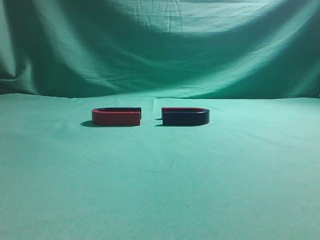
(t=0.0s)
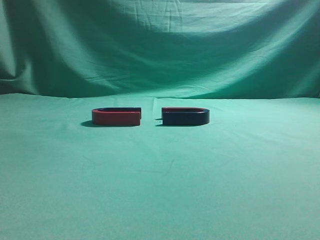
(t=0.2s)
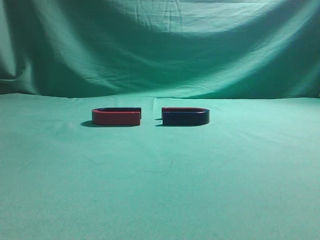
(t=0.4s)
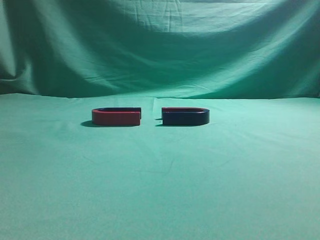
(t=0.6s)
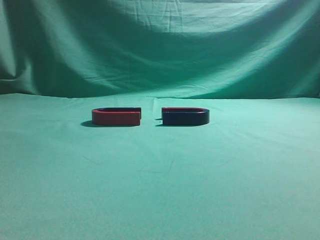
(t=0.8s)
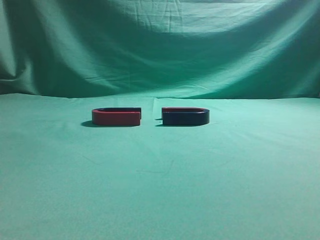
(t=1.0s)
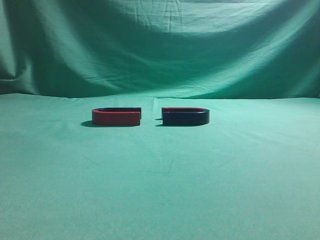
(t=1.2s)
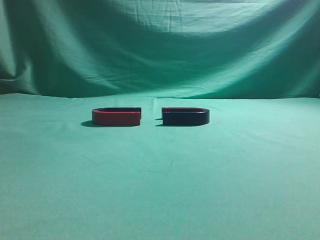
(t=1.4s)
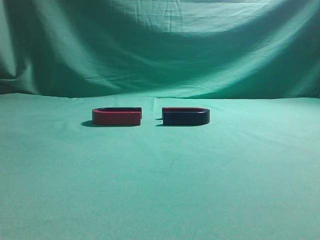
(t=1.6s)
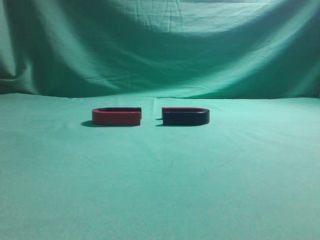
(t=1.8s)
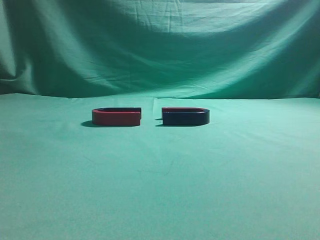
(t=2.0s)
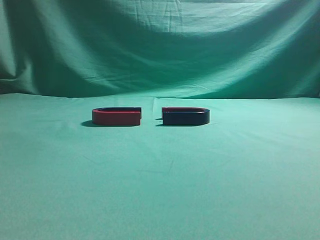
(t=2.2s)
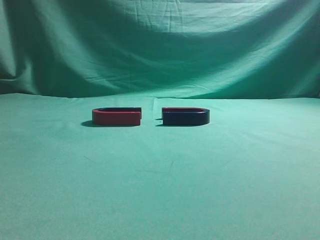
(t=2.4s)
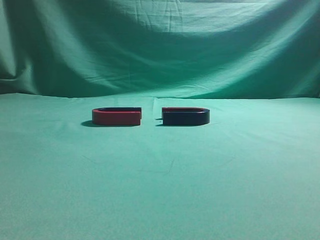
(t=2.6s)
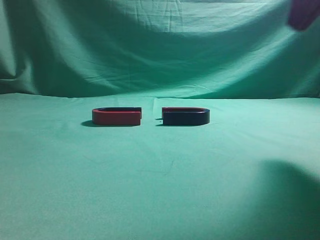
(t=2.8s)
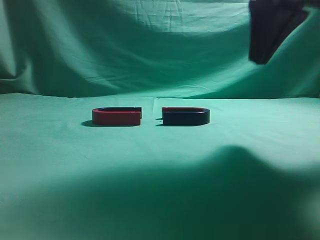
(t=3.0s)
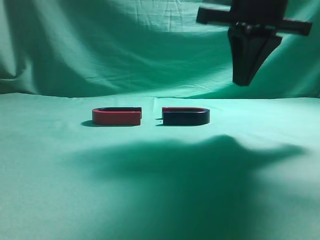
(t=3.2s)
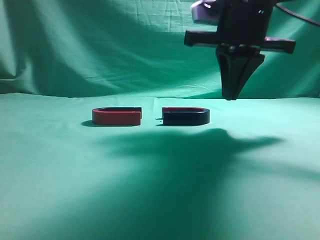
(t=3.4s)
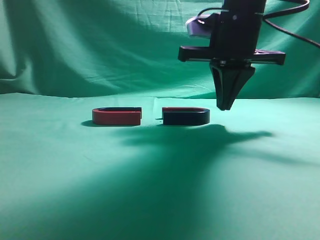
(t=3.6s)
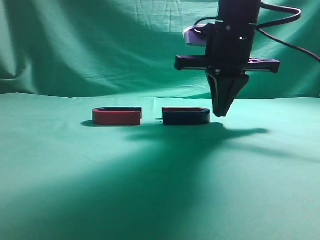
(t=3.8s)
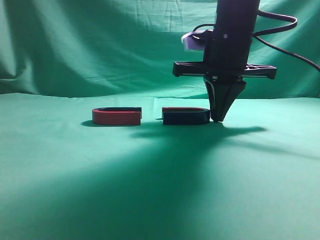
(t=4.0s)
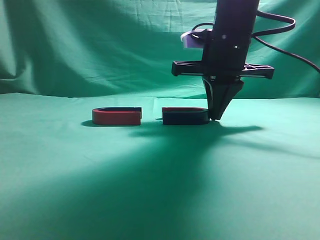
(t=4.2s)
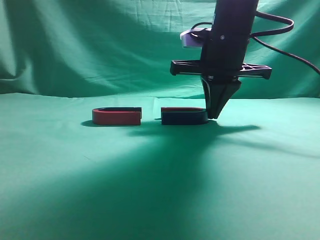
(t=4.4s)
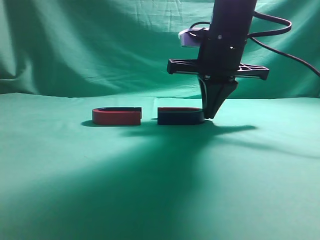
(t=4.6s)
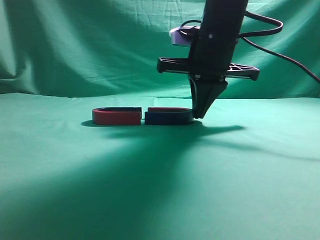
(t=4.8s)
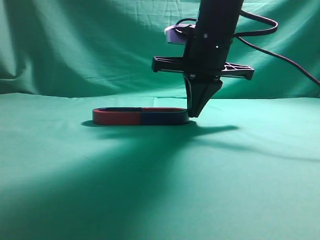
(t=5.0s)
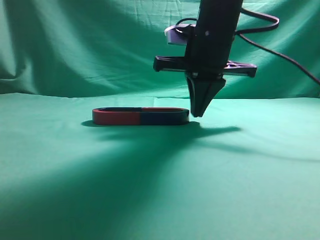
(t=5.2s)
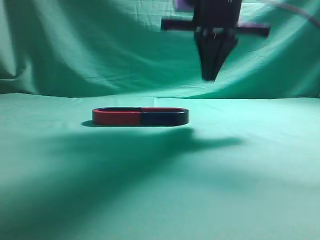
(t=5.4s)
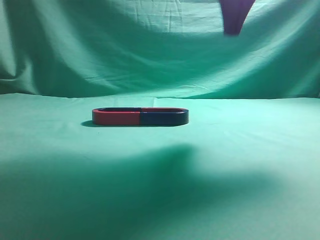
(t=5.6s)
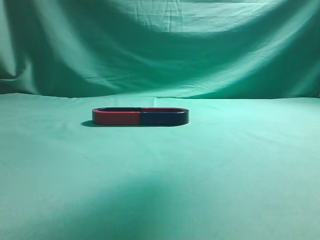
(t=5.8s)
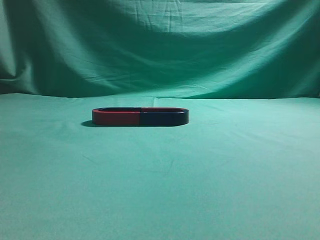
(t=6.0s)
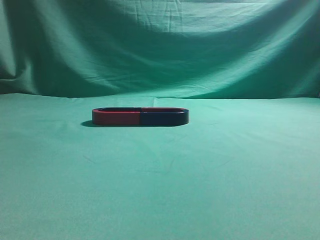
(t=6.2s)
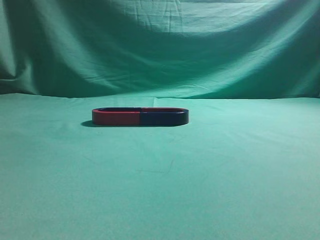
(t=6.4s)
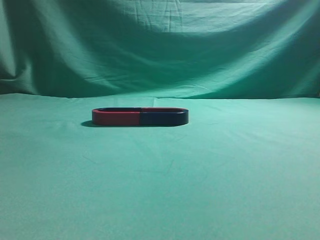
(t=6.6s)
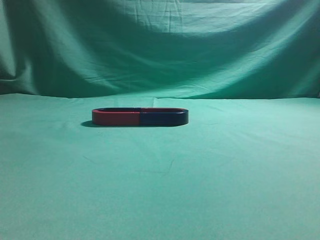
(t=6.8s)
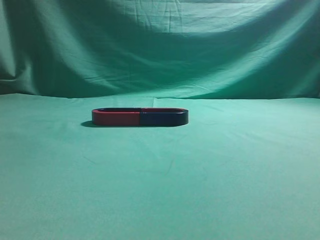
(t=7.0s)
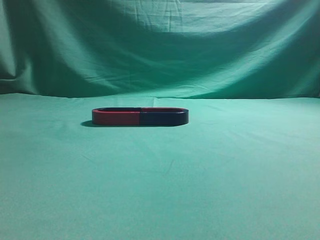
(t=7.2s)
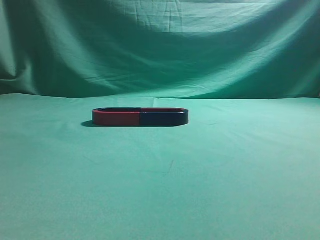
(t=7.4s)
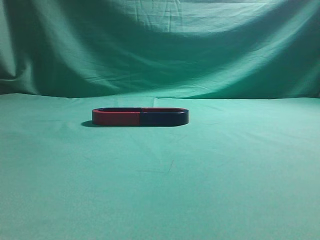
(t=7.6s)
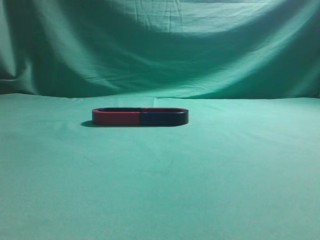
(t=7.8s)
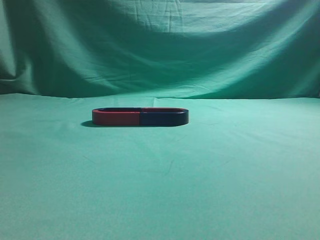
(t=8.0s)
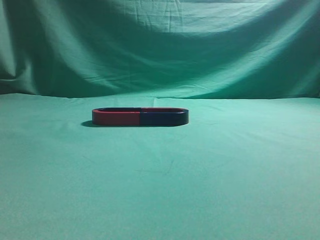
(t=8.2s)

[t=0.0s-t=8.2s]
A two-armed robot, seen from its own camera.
Task of the whole recording: push the magnet on the table from its original position to another position.
Step, t=0.0s to t=5.2s: Push the magnet on the right to connect the magnet on the left.
t=1.6s to t=3.2s: The right gripper moves forward and to the left, some 30 cm.
t=3.2s to t=5.0s: The right gripper moves forward, downward and to the left, roughly 10 cm.
t=5.0s to t=6.6s: The right gripper is displaced backward, upward and to the right by some 40 cm.
